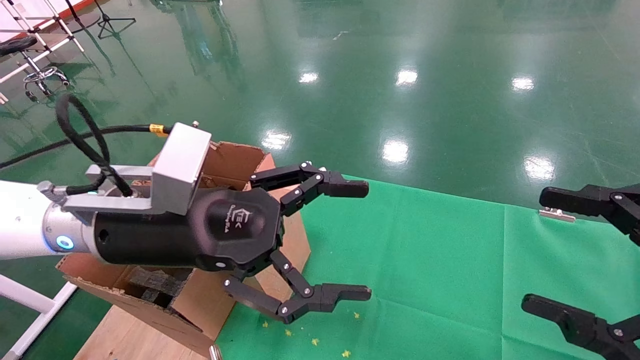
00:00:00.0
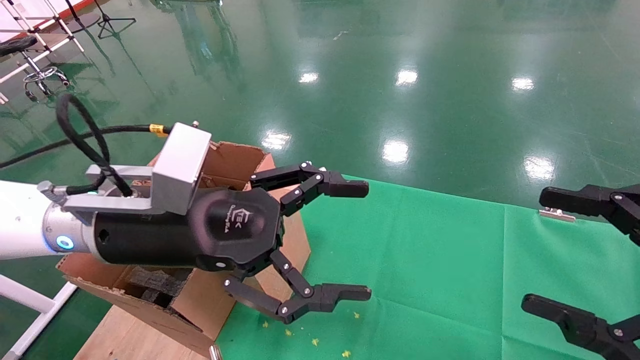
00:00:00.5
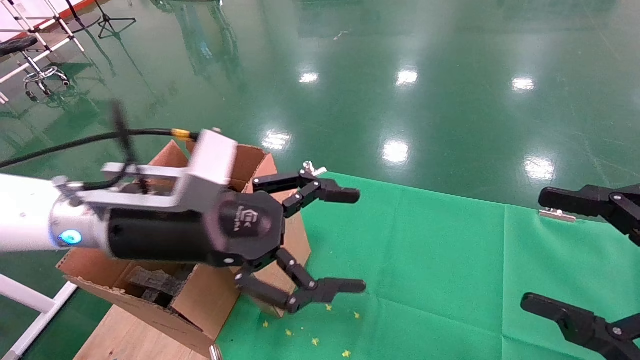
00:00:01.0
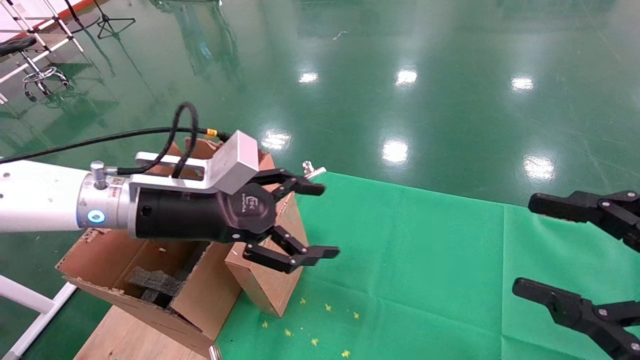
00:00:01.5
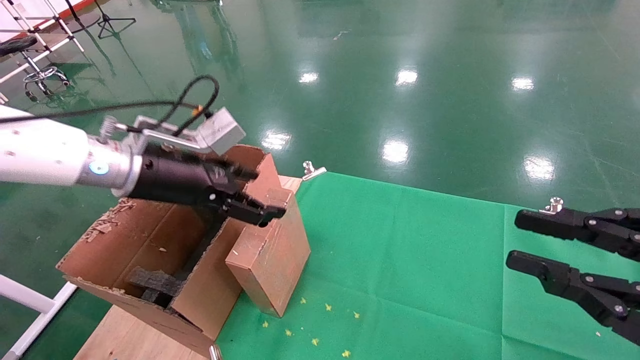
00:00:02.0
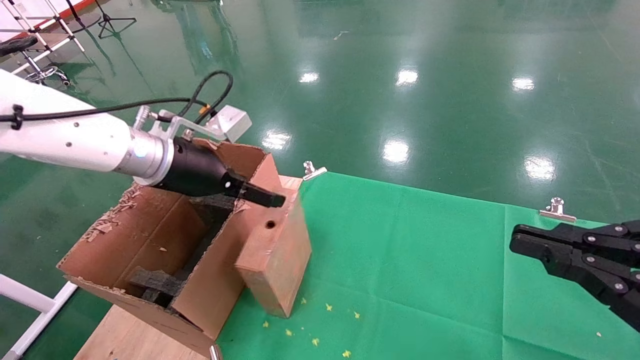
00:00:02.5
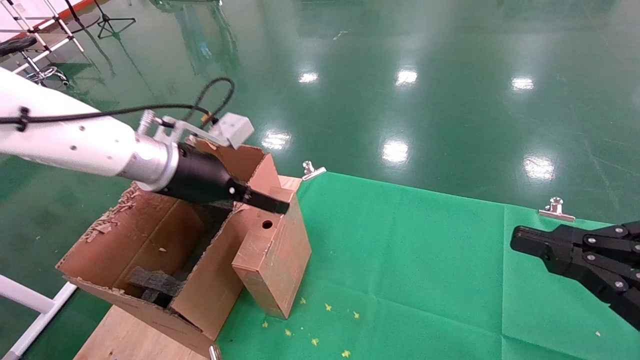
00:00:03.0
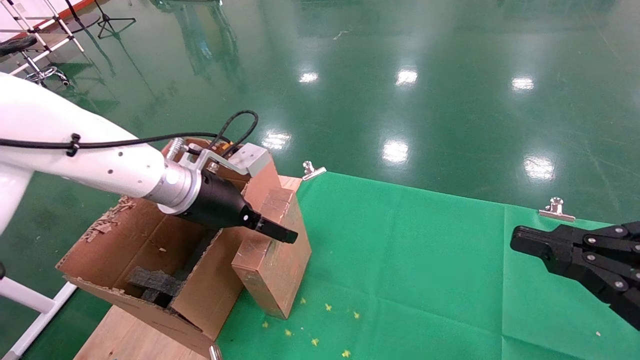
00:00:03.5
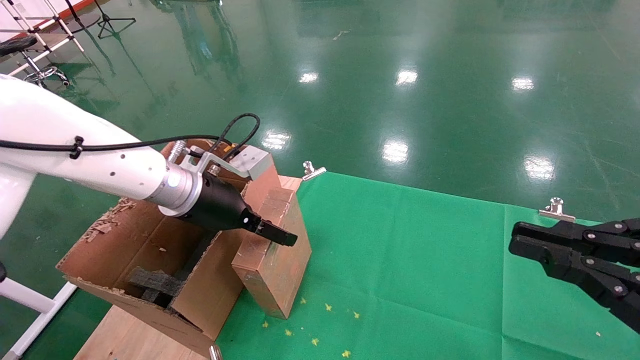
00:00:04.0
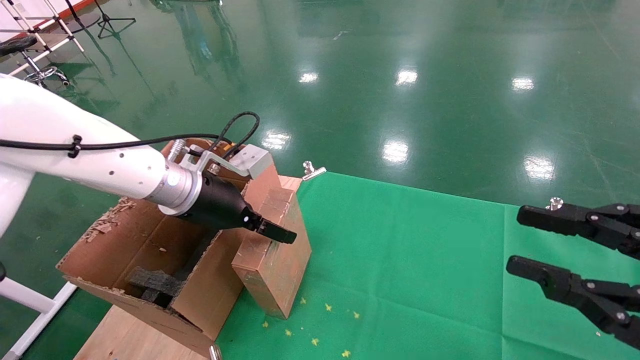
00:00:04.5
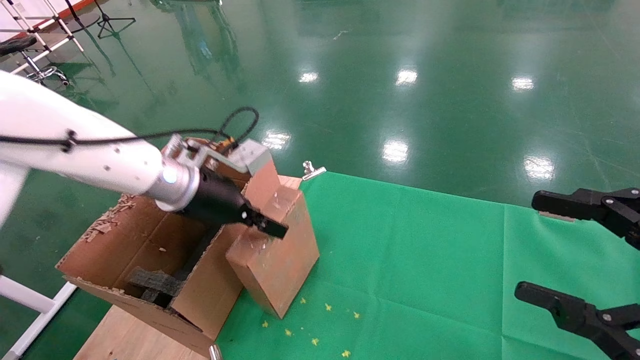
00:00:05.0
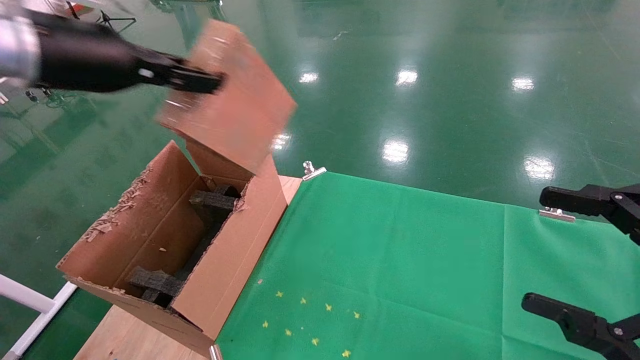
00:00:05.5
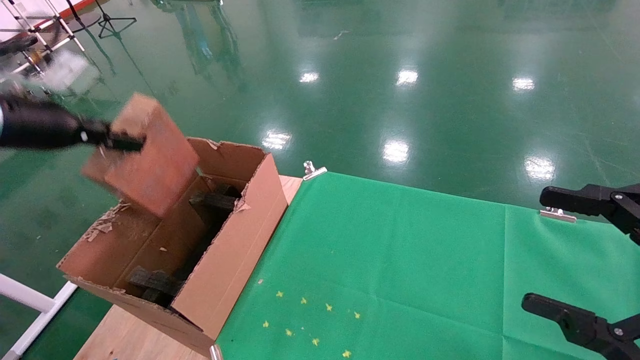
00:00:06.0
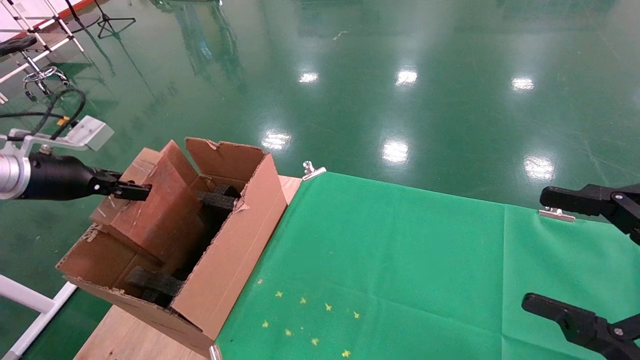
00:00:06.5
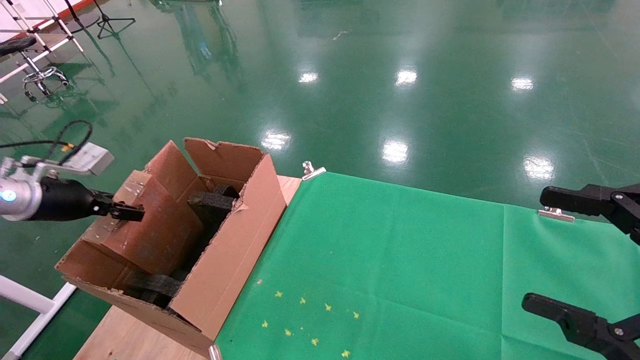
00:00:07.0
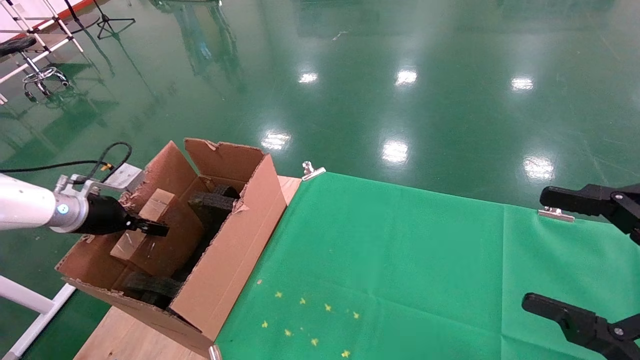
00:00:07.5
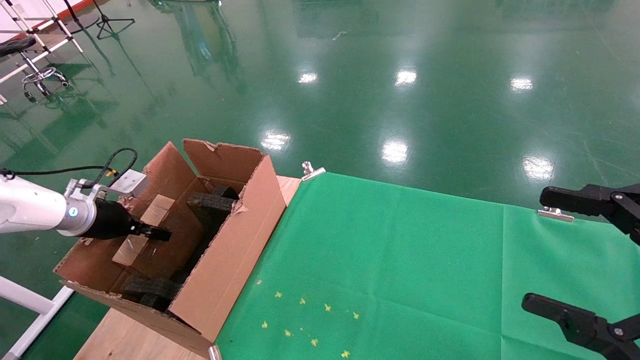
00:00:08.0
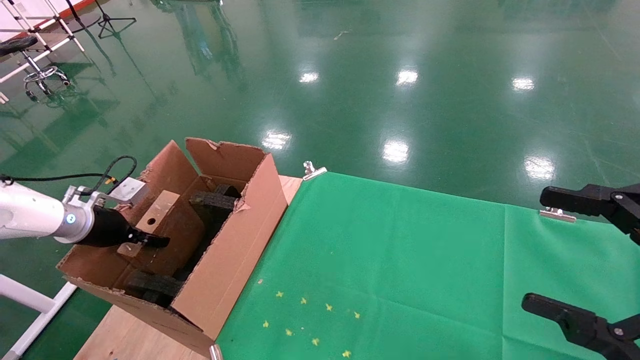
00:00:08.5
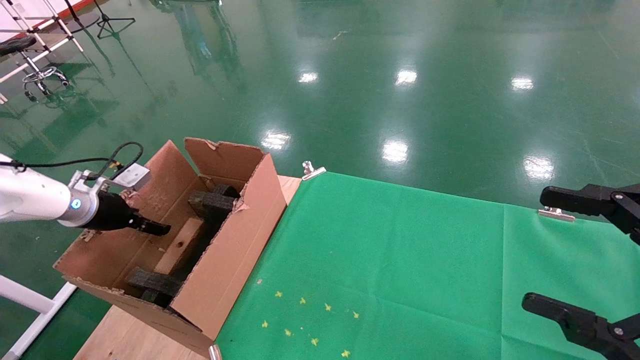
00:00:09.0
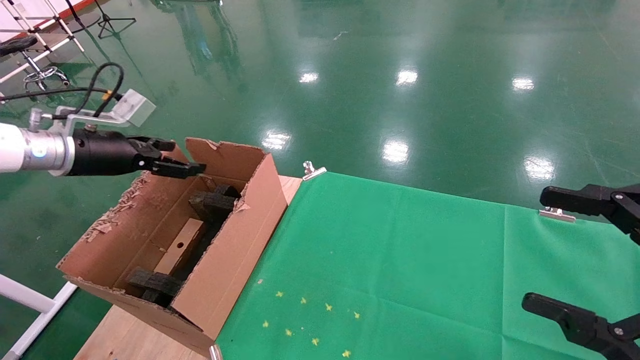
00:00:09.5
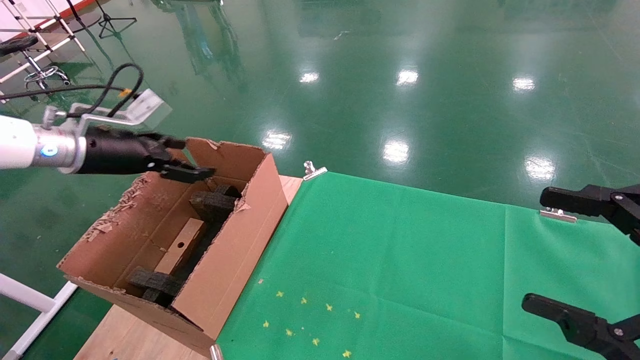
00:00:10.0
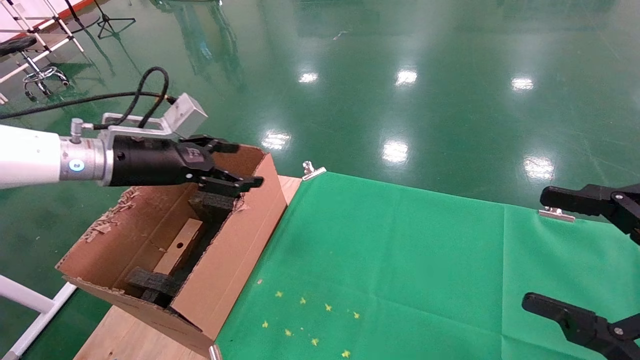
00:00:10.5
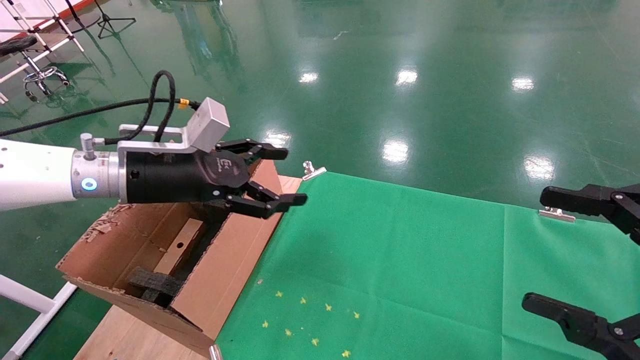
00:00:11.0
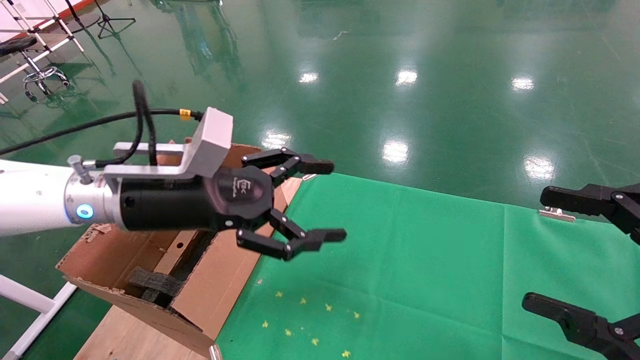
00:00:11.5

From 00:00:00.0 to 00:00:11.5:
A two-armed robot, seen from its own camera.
Task of the whole recording: using a robotic arm to pick up a cardboard box and palace it the carton.
Step, from 00:00:01.0 to 00:00:05.0: Pick up the mouse and the power cord paper box.
Step, from 00:00:05.5 to 00:00:09.0: Place the mouse and the power cord paper box into the container.
From 00:00:00.0 to 00:00:02.0: The left gripper moves forward and to the left, roughly 10 cm, while the right gripper closes its fingers.
From 00:00:02.0 to 00:00:04.0: The left gripper ends up about 5 cm from where it was. The right gripper closes up.
From 00:00:04.0 to 00:00:06.0: The left gripper goes some 25 cm to the left and upward, and closes up. Meanwhile the right gripper opens up.
From 00:00:06.0 to 00:00:07.5: The left gripper moves downward and forward, approximately 20 cm.
From 00:00:07.5 to 00:00:09.5: The left gripper goes approximately 10 cm upward and to the right, and opens up.
From 00:00:09.5 to 00:00:11.5: The left gripper heads to the right and backward, covering roughly 25 cm.

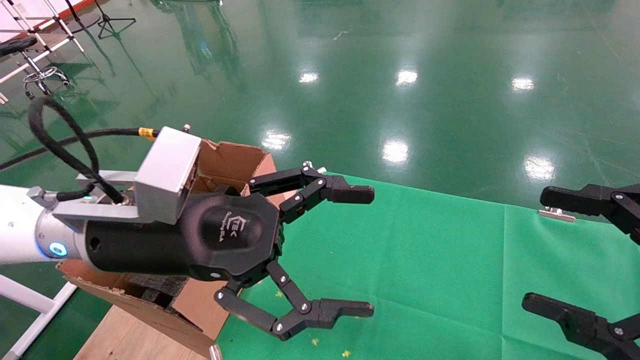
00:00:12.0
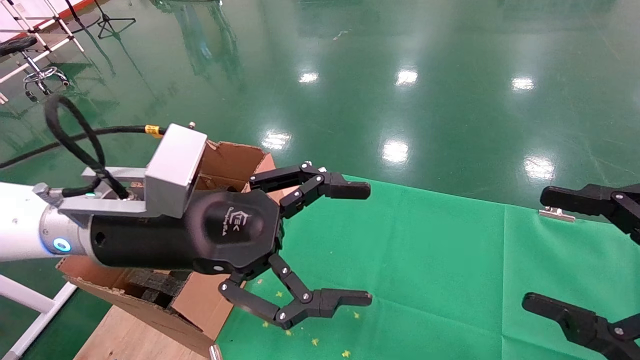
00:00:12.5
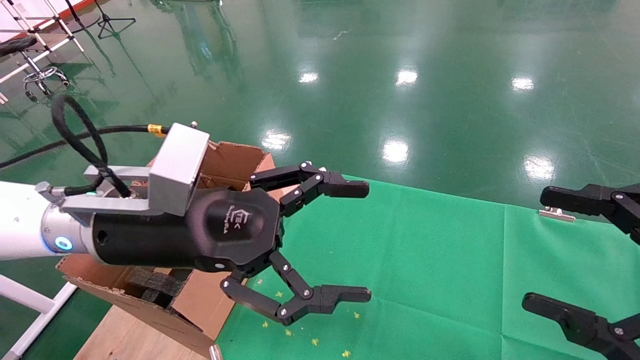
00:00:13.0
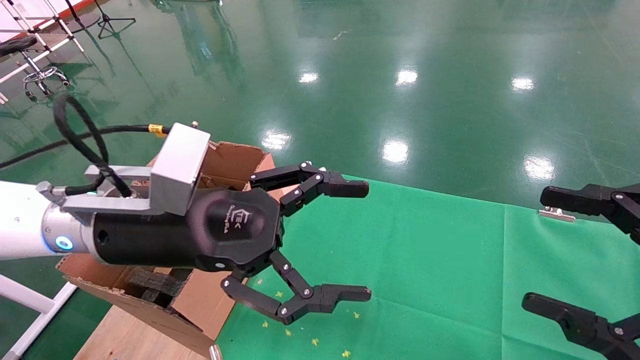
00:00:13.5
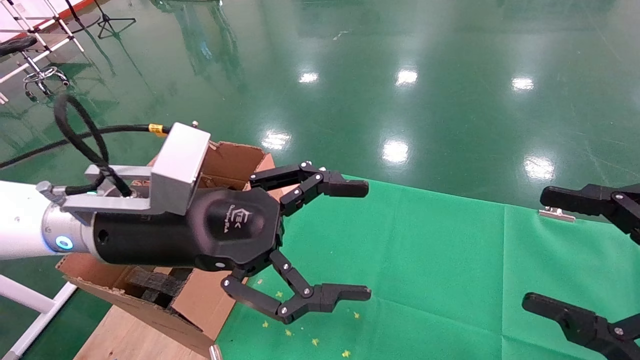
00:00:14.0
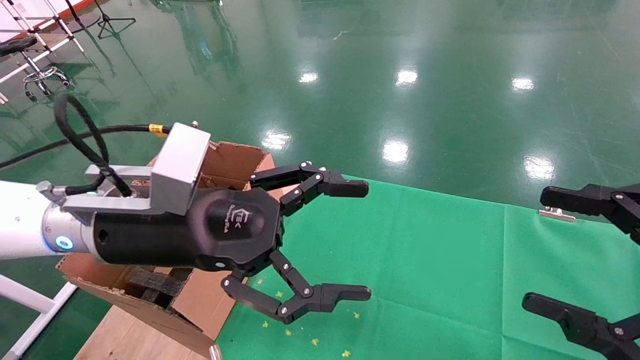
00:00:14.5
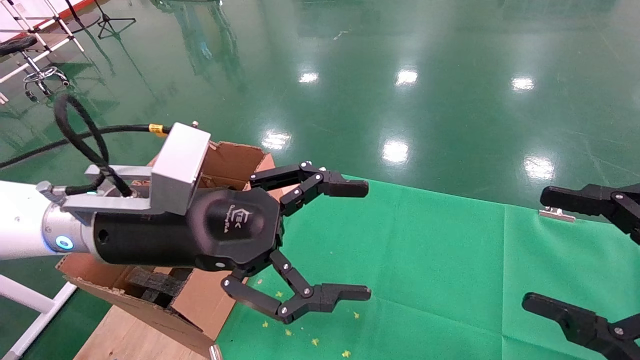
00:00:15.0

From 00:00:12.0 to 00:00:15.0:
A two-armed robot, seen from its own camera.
Task of the whole recording: using a robotic arm to pick up a cardboard box and palace it the carton.
From 00:00:12.0 to 00:00:15.0: The two grippers keep their place.
